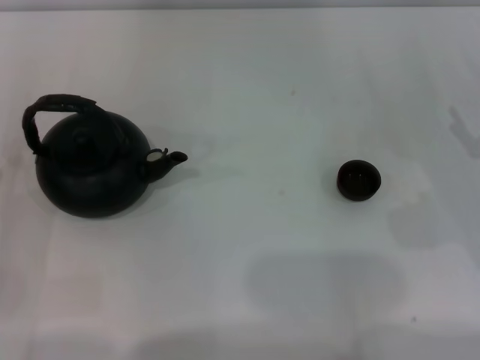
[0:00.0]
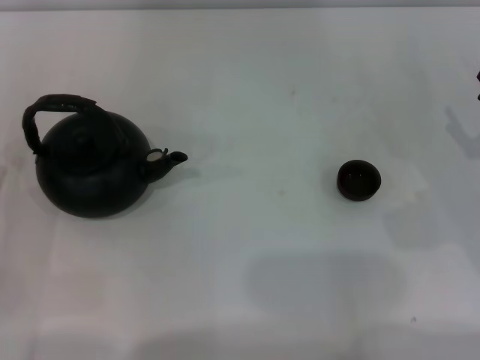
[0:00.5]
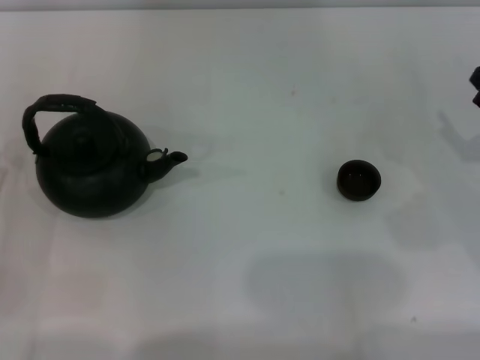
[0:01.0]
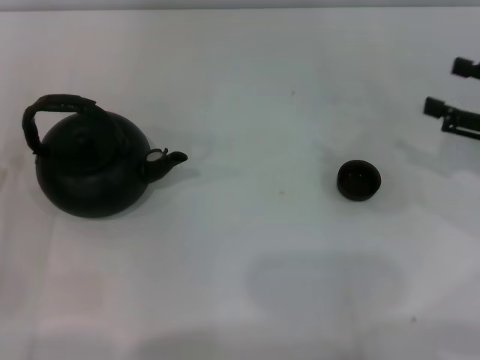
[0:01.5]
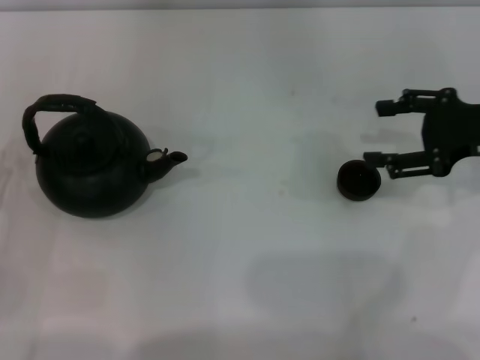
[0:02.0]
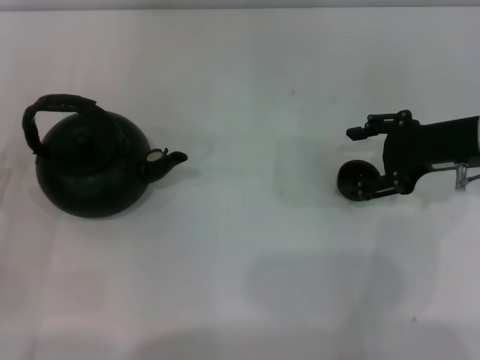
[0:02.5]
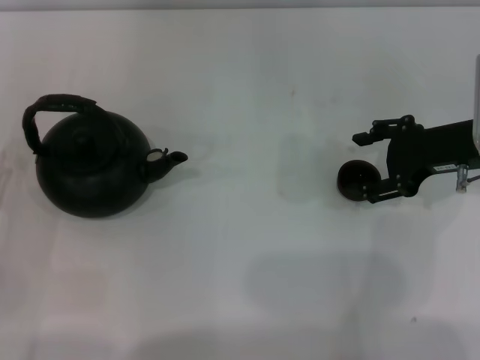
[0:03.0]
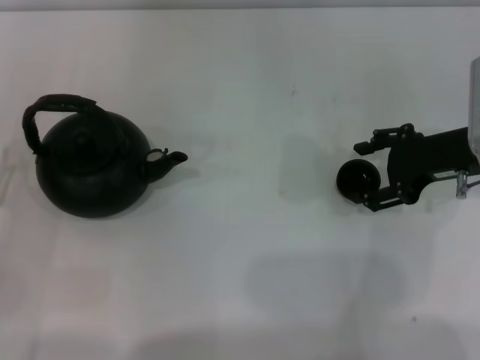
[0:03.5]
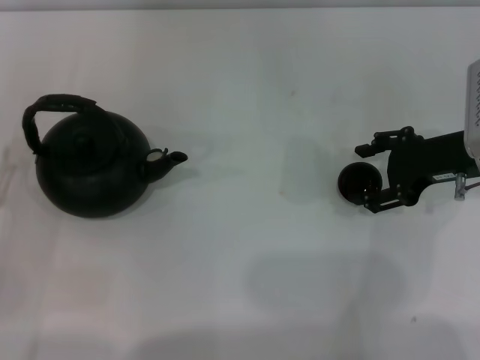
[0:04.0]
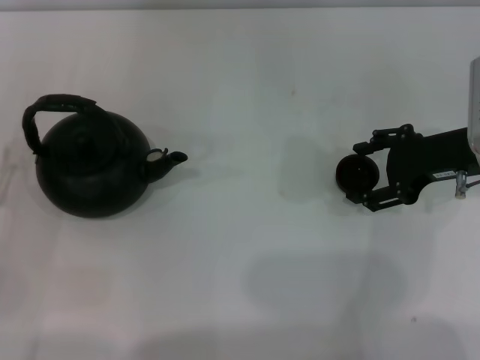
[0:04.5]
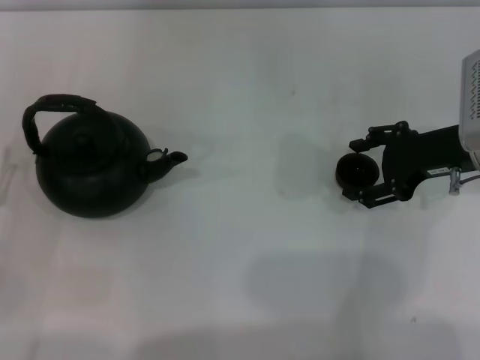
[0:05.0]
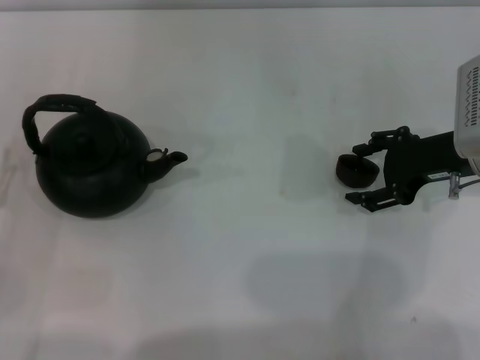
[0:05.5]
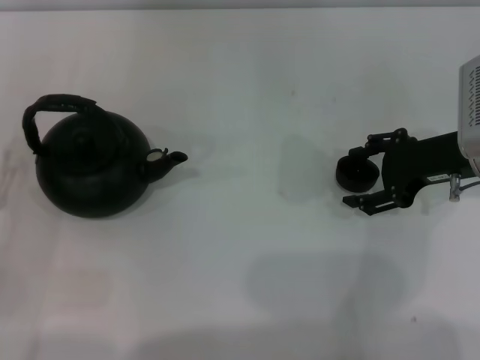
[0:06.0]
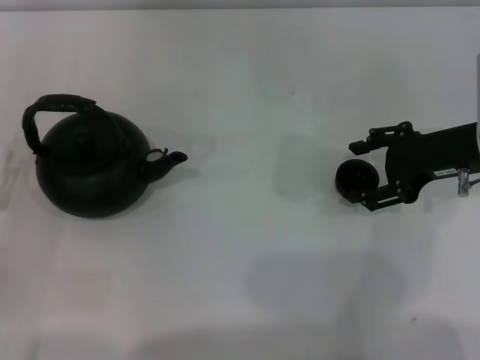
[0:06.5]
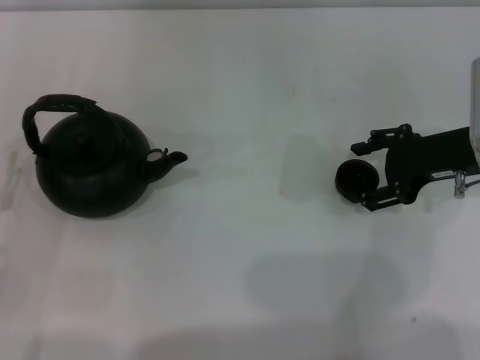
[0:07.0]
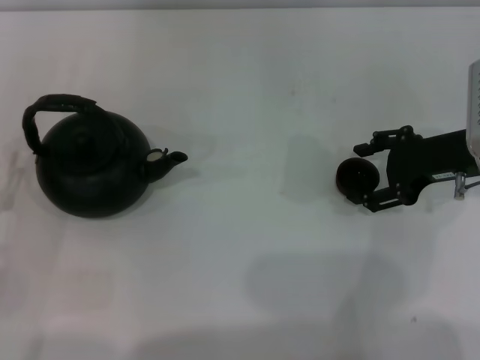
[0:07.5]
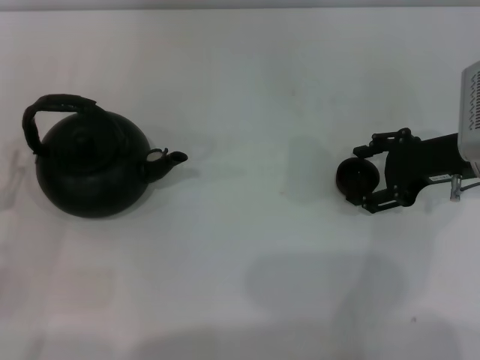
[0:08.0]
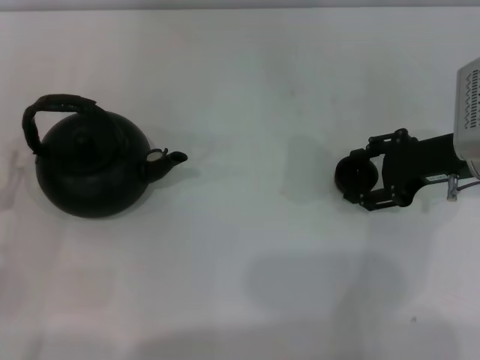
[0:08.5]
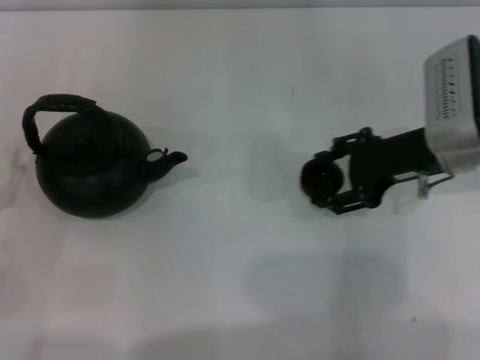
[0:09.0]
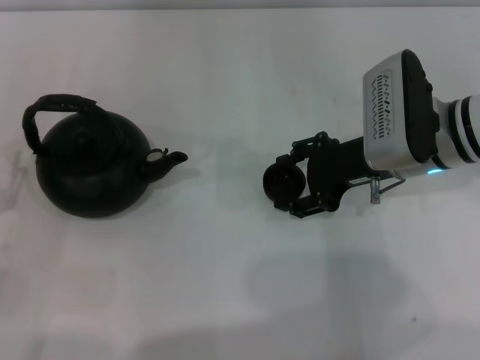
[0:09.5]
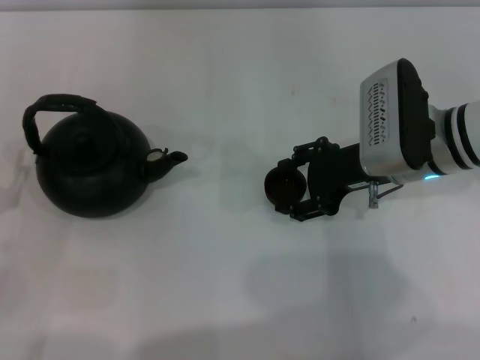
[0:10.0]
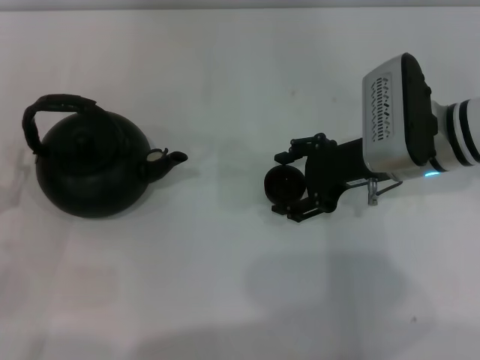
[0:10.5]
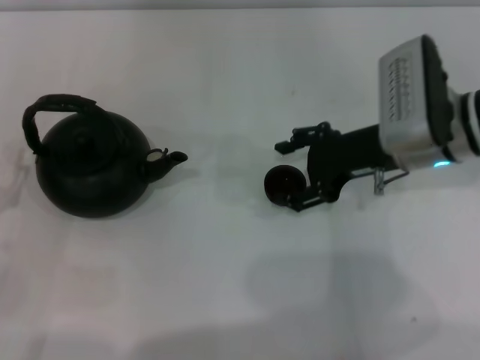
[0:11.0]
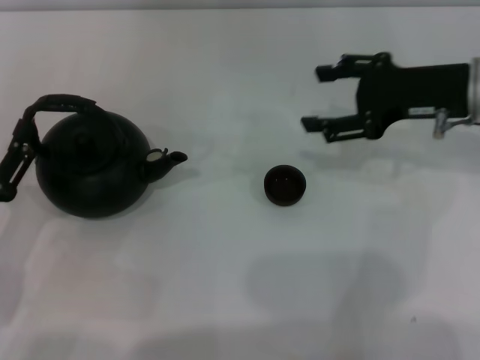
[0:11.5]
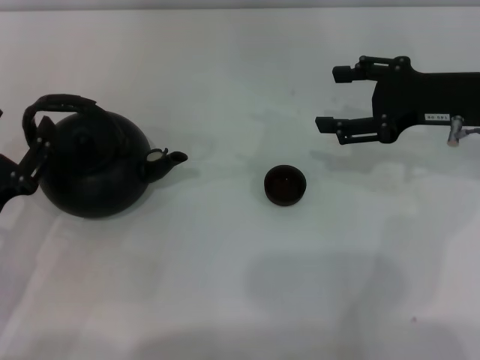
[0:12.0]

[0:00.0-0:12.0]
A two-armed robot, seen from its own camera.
Task of the whole recording: Grasp the handle of the teapot with one hand and pour tea into the teacup.
Step, 0:00.0 to 0:08.5: Pick up the teacup with the right gripper.
0:00.0 to 0:02.0: The right gripper moves upward and forward, approximately 10 cm.
0:02.0 to 0:04.0: The right gripper shifts by about 5 cm.
0:04.0 to 0:08.0: Both grippers stay put.
0:08.0 to 0:10.0: The right gripper heads to the left, covering approximately 10 cm, and closes up.
0:10.0 to 0:12.0: The right gripper is displaced to the right and upward by roughly 10 cm, and opens up.

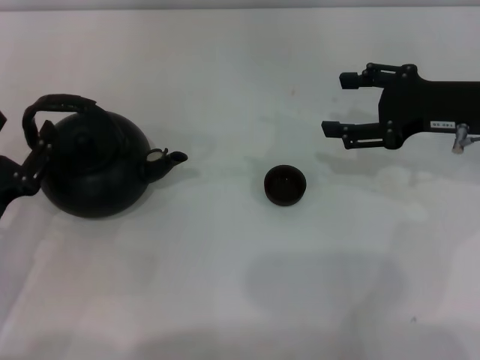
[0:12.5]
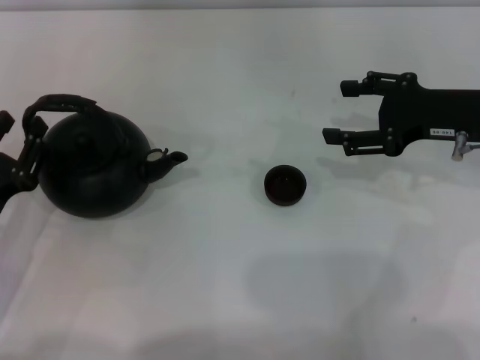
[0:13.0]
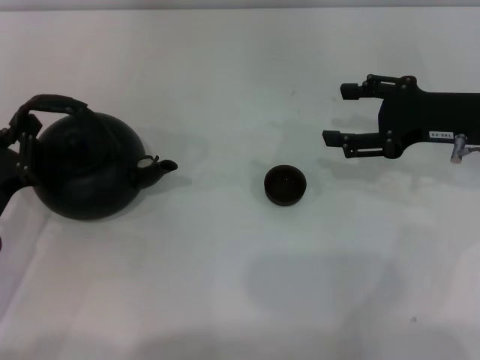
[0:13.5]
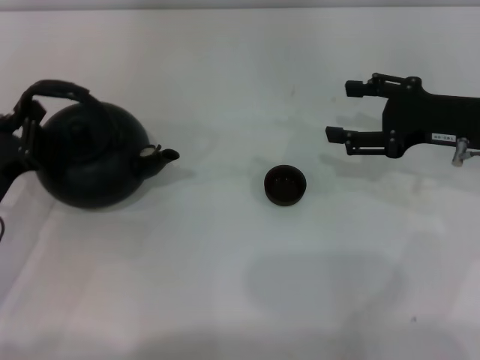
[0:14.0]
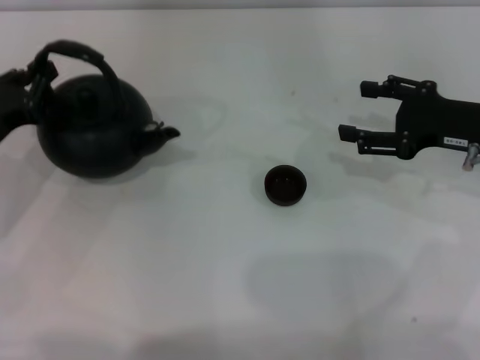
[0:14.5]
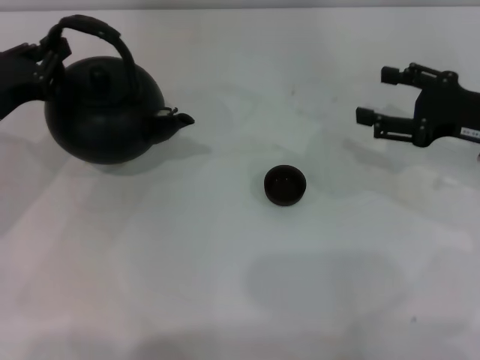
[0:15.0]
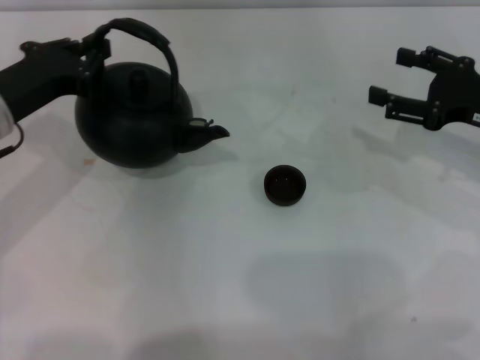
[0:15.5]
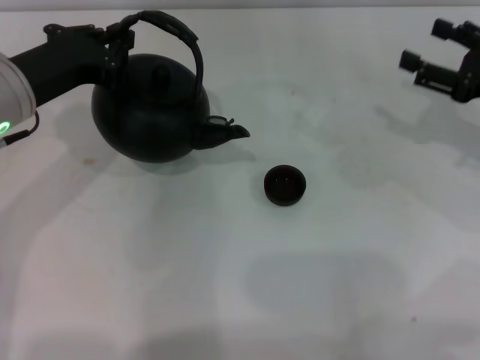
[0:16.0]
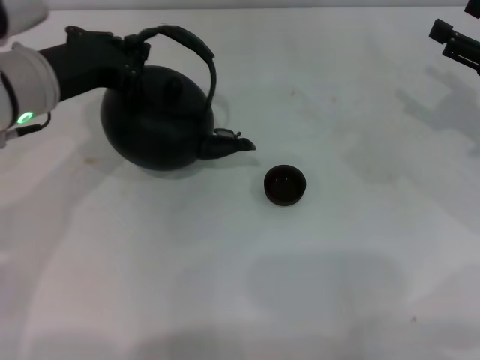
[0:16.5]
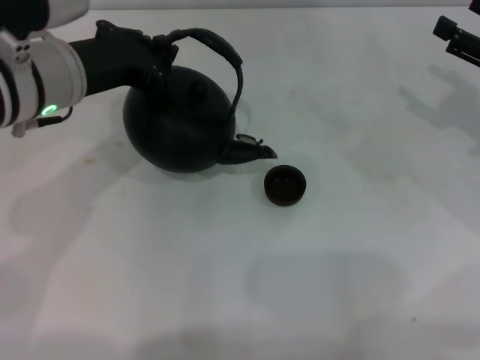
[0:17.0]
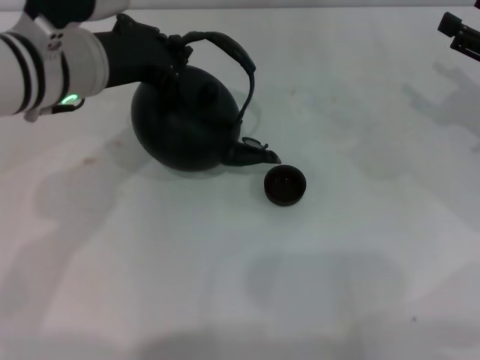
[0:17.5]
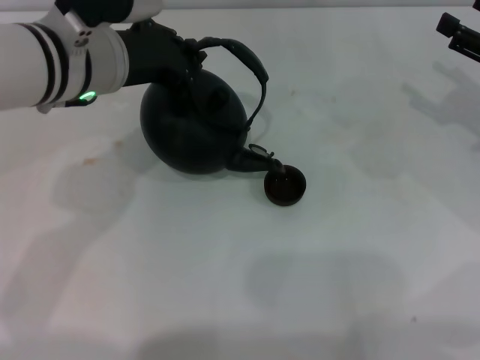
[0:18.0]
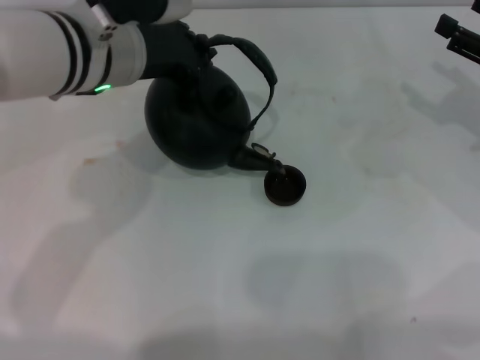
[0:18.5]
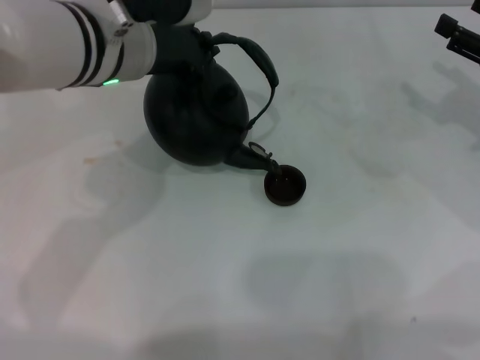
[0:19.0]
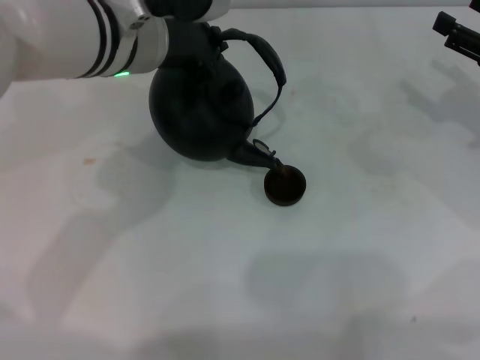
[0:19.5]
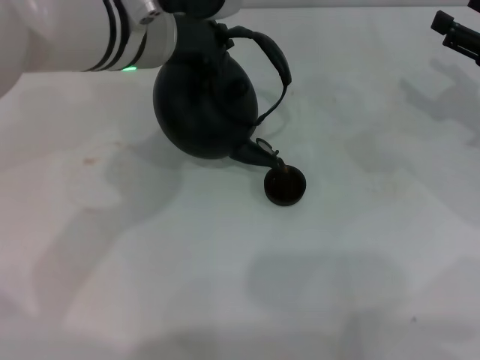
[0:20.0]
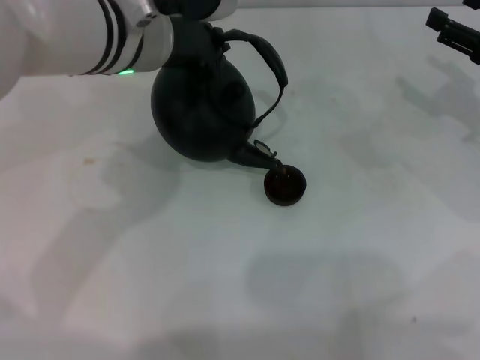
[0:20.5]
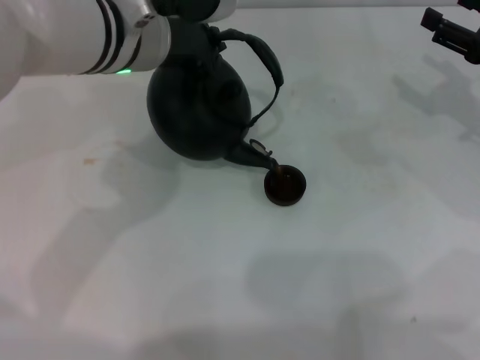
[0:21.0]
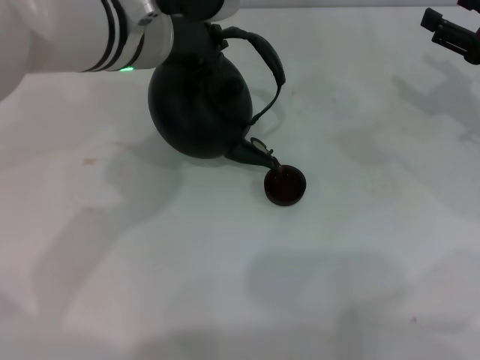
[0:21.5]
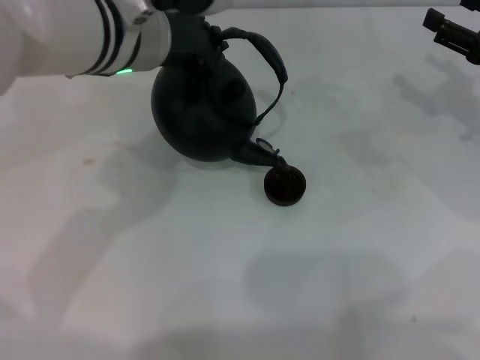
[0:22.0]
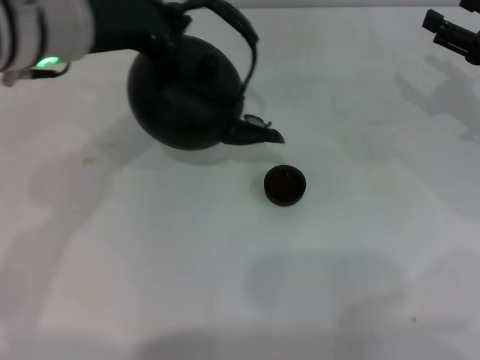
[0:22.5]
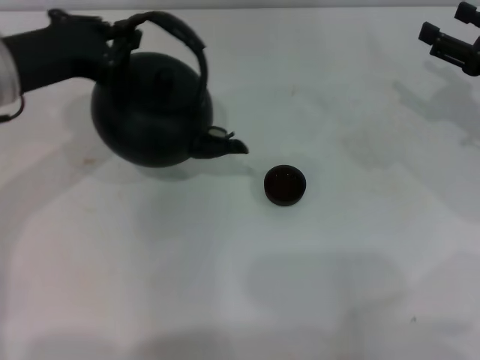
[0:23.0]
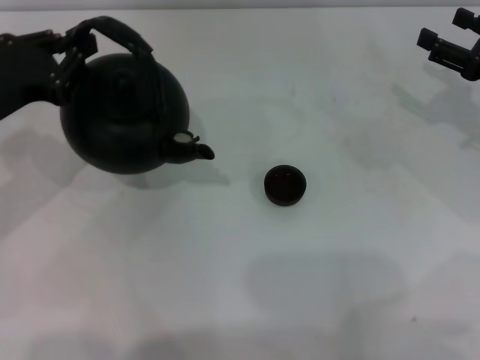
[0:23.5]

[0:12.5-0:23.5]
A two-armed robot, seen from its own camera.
Task of the whole recording: Grasp the handle of the teapot with one hand and pour tea into the teacup.
Step, 0:13.5 to 0:16.0: Pick up the teapot with the left gripper.
Step, 0:16.5 to 0:22.5: Pour tea into the teacup with the left gripper.
0:12.5 to 0:14.5: The left gripper moves forward, some 10 cm, and closes up.
0:14.5 to 0:16.0: The left gripper goes approximately 10 cm upward and to the right.
0:16.0 to 0:18.0: The left gripper shifts roughly 10 cm to the right.
0:18.0 to 0:20.0: The left gripper changes place by about 5 cm.
0:20.0 to 0:21.5: Both grippers stay put.
0:21.5 to 0:23.5: The left gripper heads to the left, covering about 20 cm.

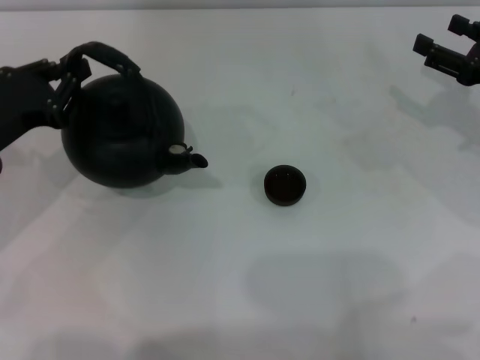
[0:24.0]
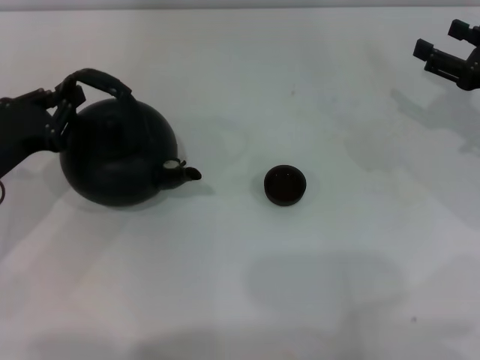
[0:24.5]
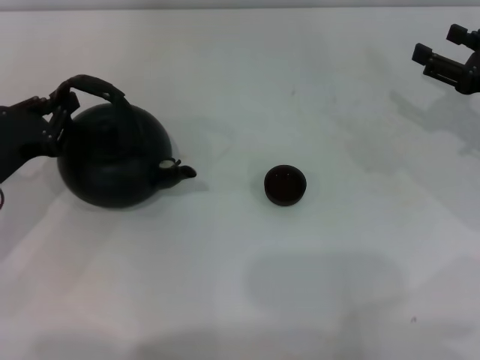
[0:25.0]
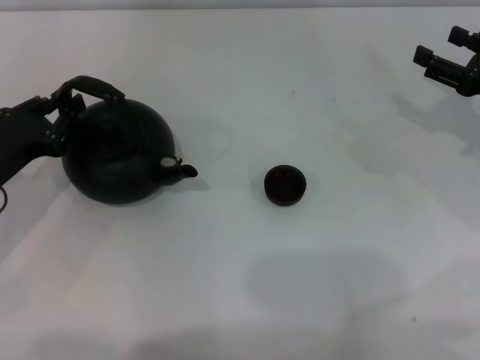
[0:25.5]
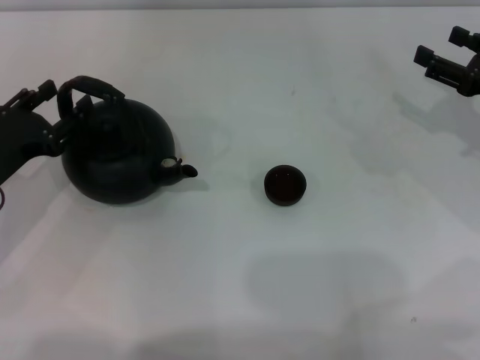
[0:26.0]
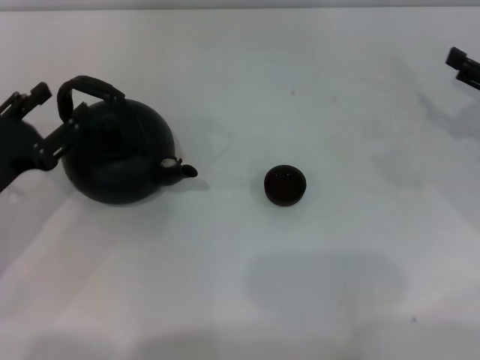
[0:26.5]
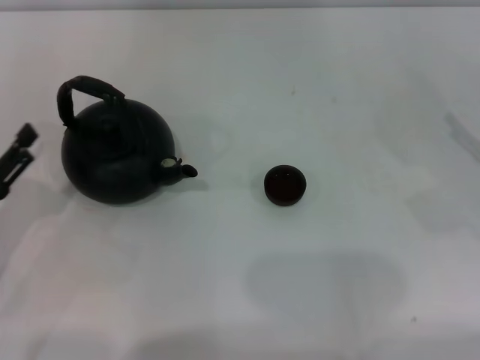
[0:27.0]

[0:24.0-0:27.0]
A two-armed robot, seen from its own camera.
Task of the whole recording: Grasp the handle of the teapot with one hand and pour tea into the teacup.
Step, 0:24.0 to 0:26.0: Put down the teapot with the left gripper.
0:24.0 to 0:25.5: The grippers move only a little.
0:25.5 to 0:27.0: Both grippers travel together backward, some 5 cm. The left gripper opens up.
